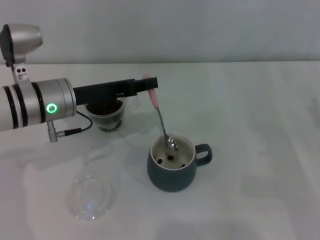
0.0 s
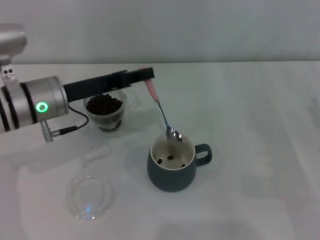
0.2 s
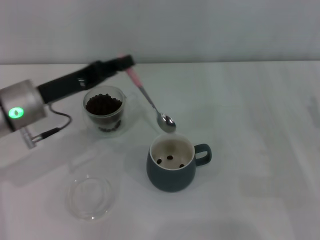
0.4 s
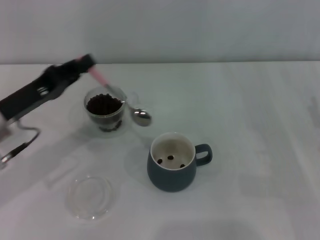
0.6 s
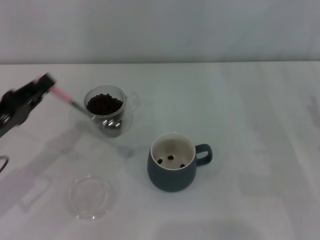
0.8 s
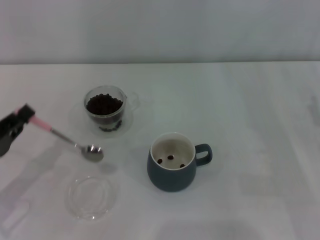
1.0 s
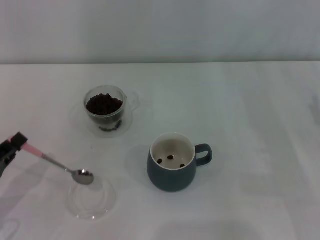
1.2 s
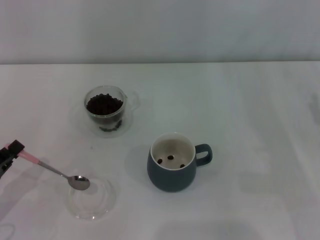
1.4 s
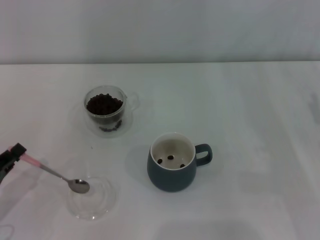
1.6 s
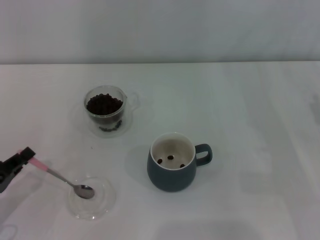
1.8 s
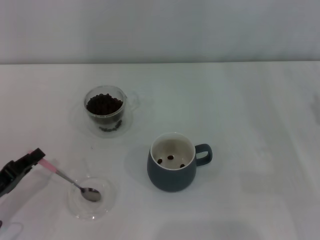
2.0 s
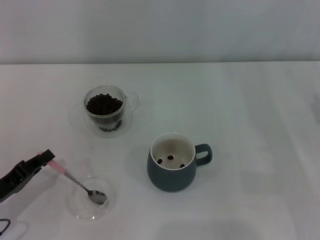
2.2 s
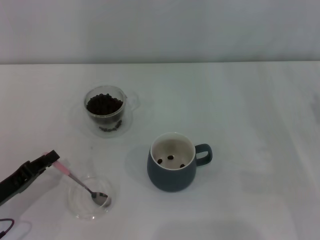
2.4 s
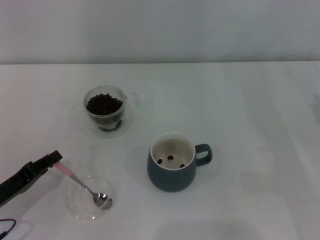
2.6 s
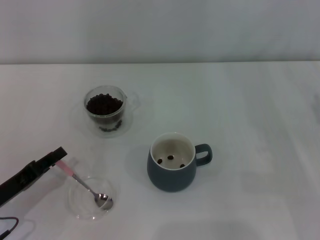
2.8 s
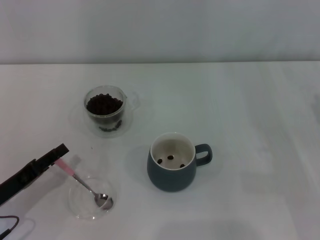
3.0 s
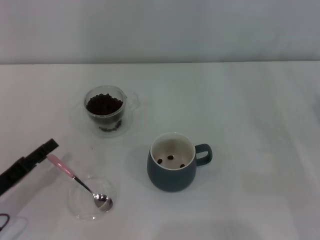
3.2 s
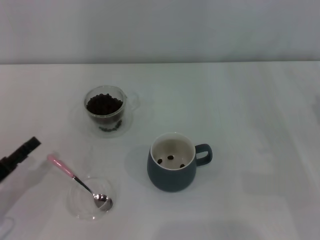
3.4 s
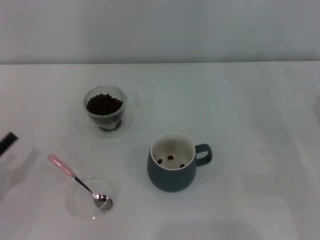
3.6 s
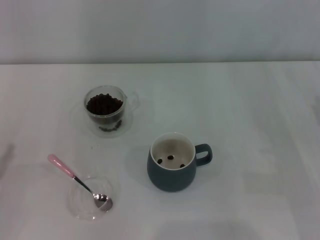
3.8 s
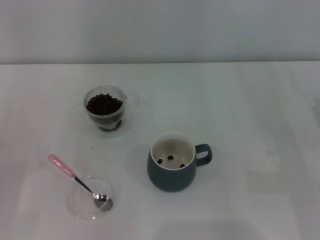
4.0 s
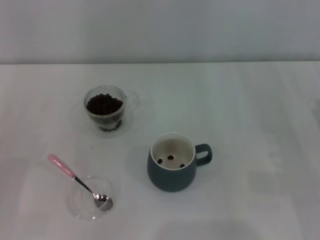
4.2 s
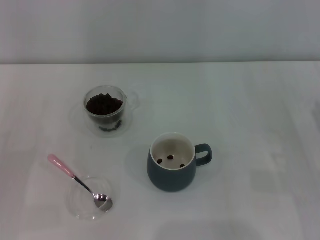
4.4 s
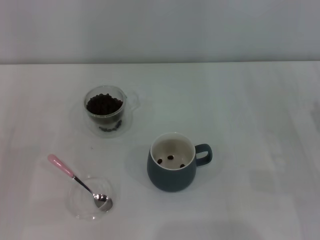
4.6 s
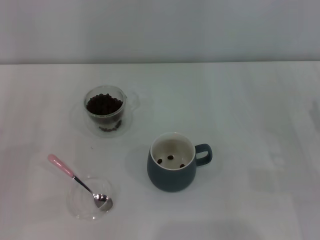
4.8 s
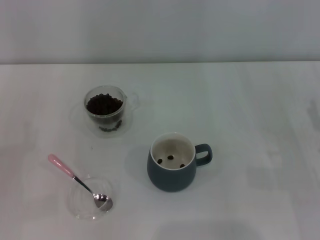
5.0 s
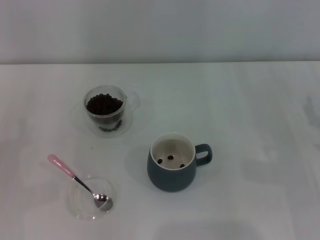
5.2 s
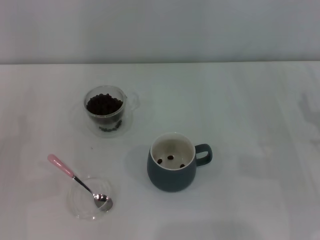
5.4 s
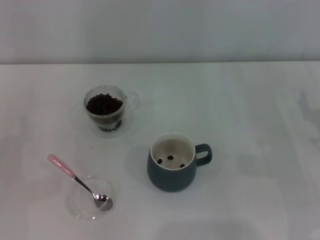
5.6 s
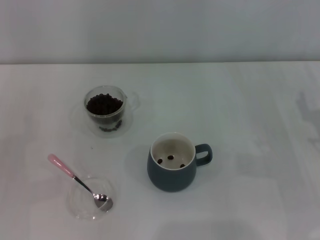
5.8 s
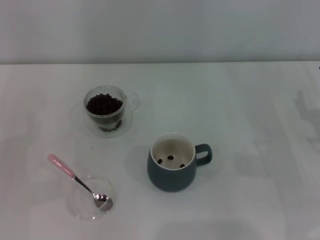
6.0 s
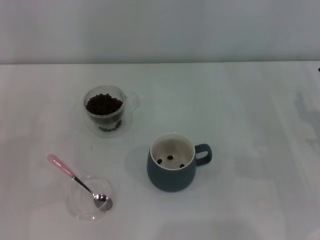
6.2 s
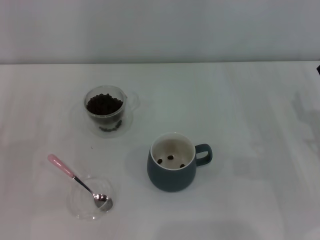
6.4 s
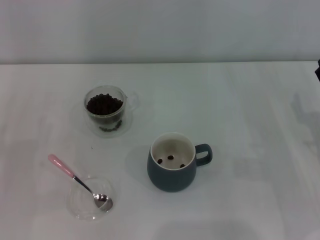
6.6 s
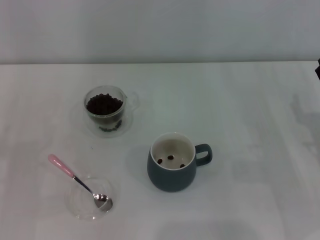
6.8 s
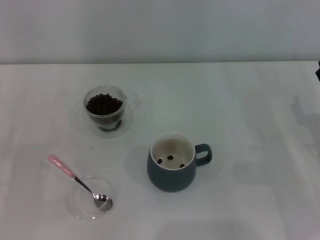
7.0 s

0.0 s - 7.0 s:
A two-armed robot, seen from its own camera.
Task of the whole recording: Use a pink spoon to take out the coffee beans from the glass and pour them into the gray cup.
0.0 s - 1.4 s: The left gripper travels backward, to the left and downward by about 25 cm.
1.4 s - 2.8 s: The grippers move only a little.
2.8 s - 4.2 s: The left gripper heads to the left, covering approximately 10 cm, and opens up.

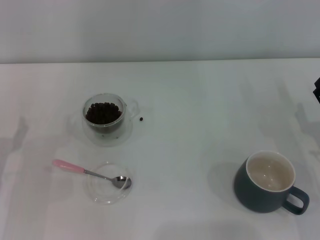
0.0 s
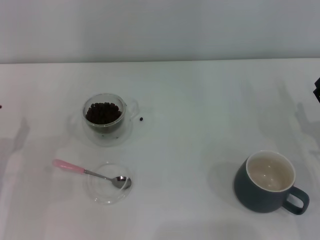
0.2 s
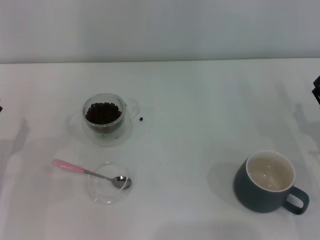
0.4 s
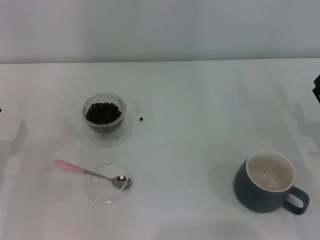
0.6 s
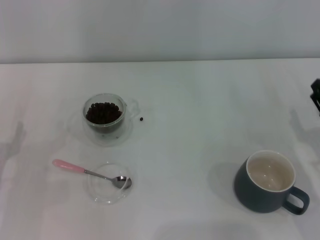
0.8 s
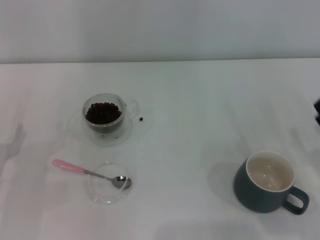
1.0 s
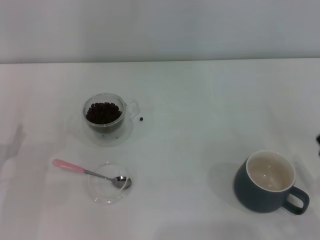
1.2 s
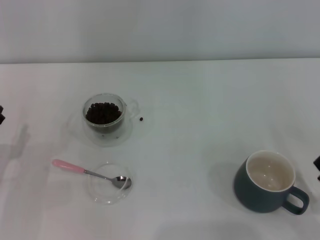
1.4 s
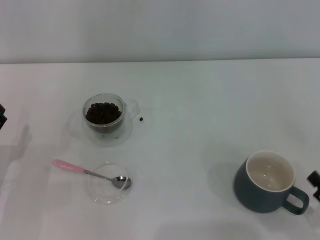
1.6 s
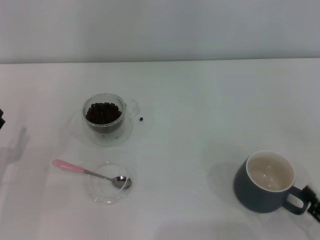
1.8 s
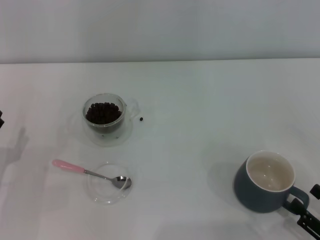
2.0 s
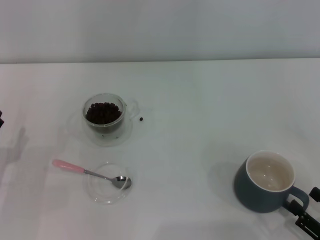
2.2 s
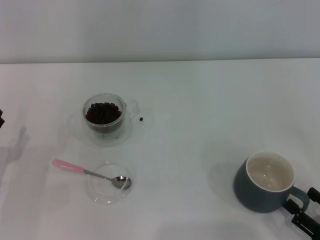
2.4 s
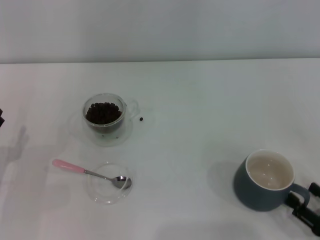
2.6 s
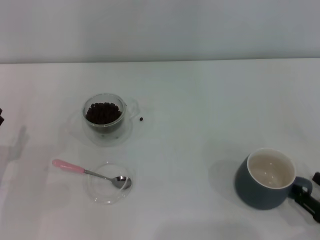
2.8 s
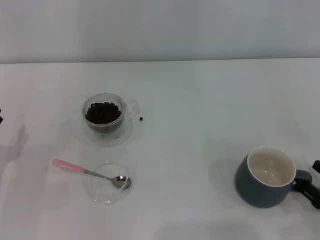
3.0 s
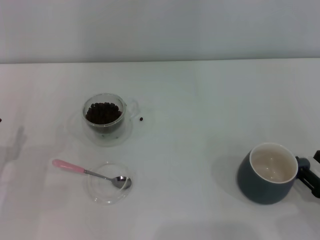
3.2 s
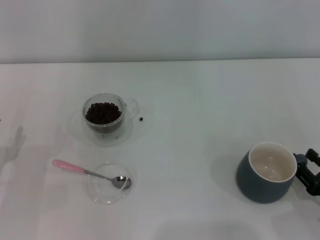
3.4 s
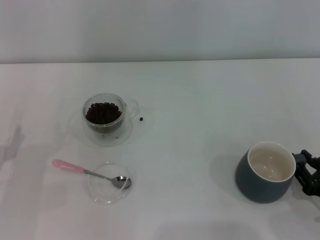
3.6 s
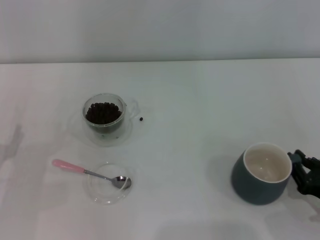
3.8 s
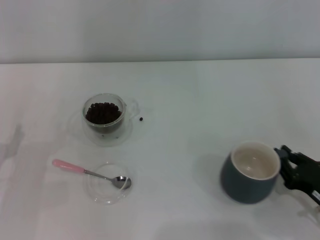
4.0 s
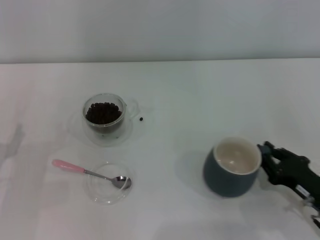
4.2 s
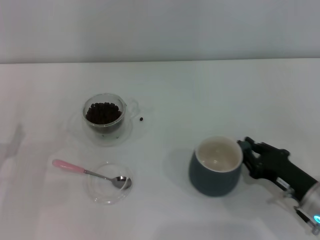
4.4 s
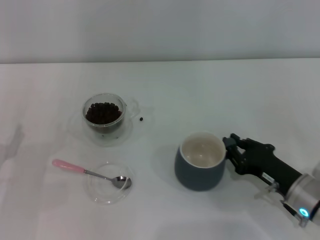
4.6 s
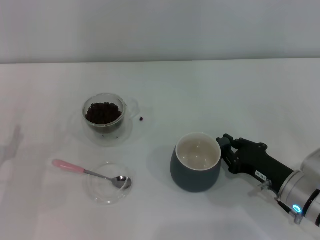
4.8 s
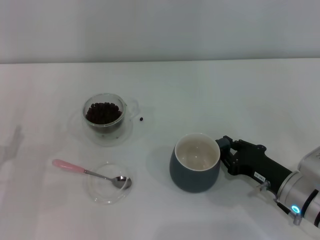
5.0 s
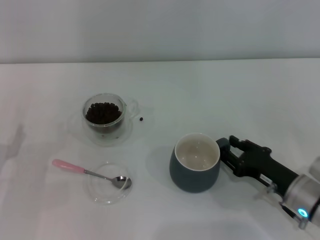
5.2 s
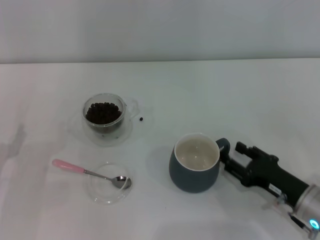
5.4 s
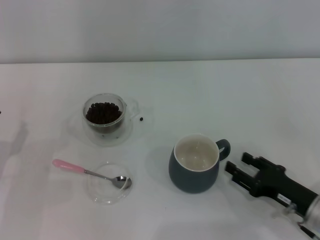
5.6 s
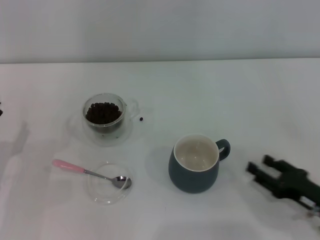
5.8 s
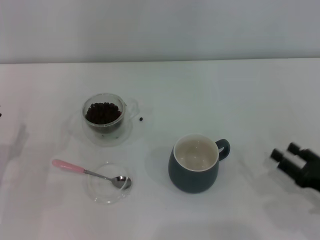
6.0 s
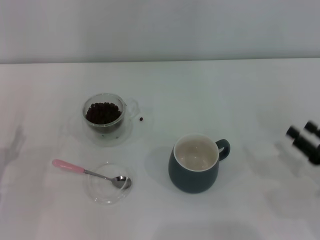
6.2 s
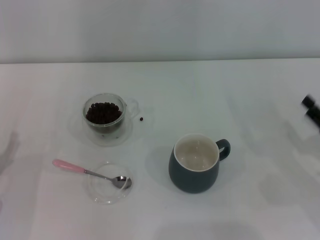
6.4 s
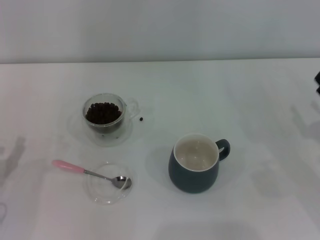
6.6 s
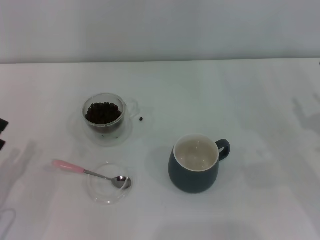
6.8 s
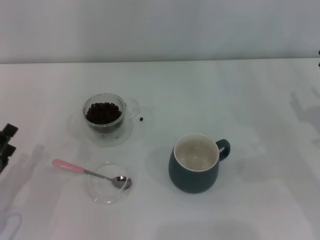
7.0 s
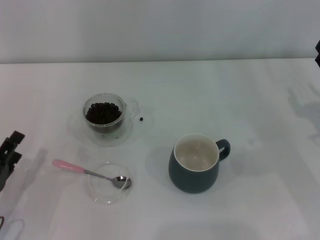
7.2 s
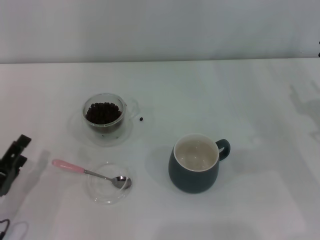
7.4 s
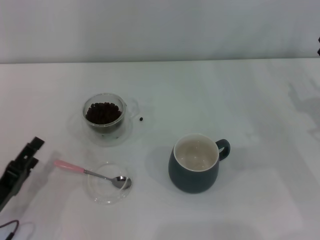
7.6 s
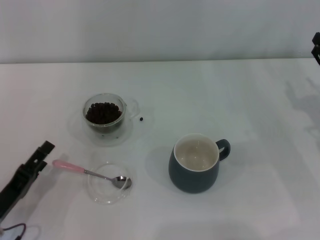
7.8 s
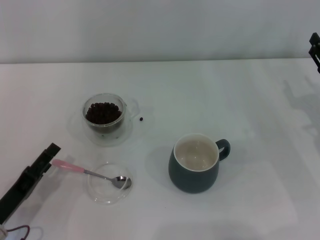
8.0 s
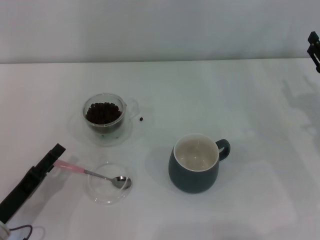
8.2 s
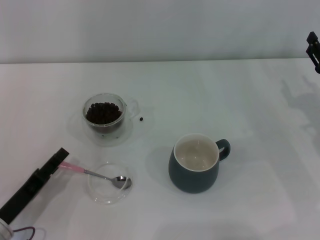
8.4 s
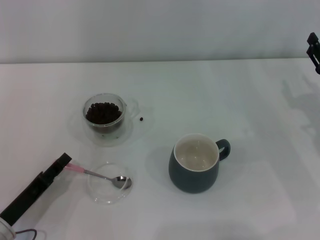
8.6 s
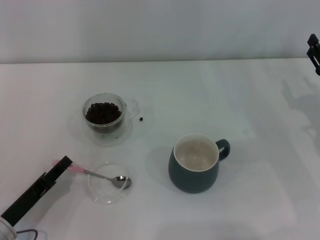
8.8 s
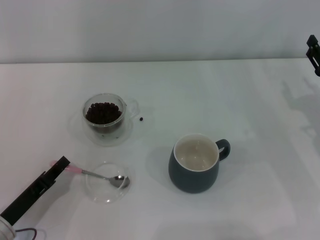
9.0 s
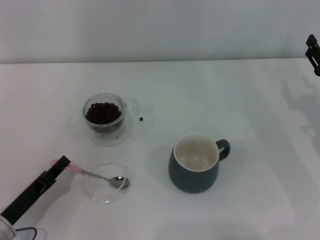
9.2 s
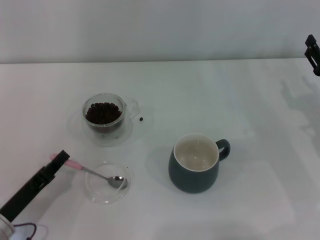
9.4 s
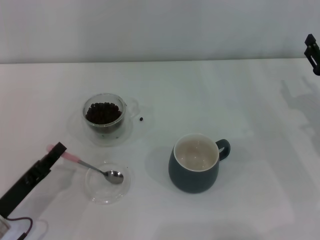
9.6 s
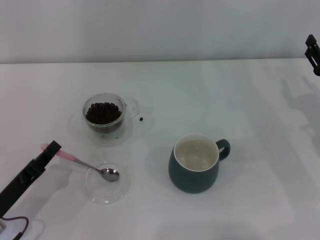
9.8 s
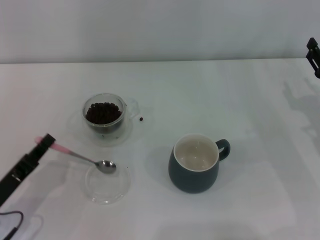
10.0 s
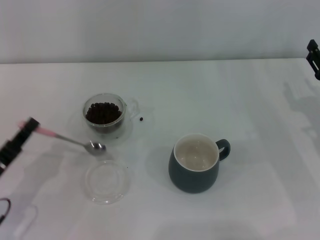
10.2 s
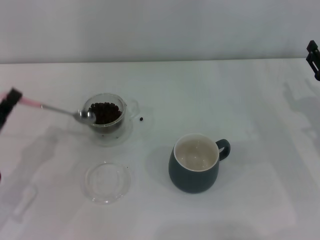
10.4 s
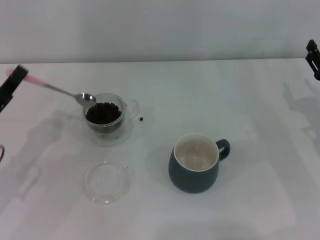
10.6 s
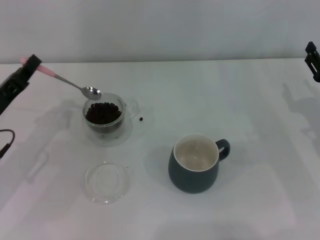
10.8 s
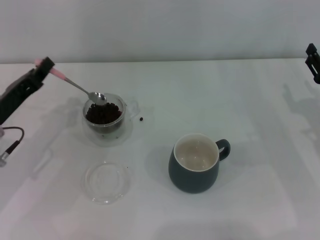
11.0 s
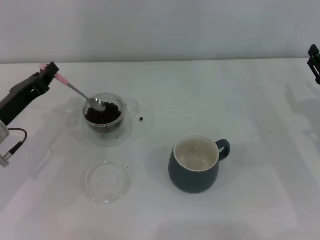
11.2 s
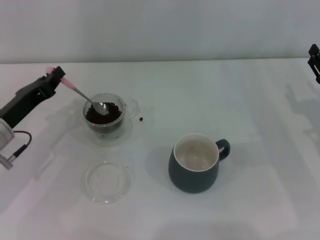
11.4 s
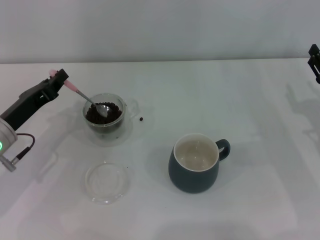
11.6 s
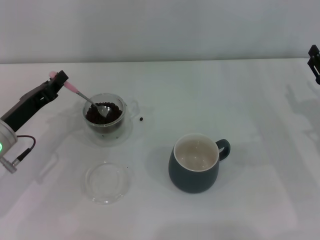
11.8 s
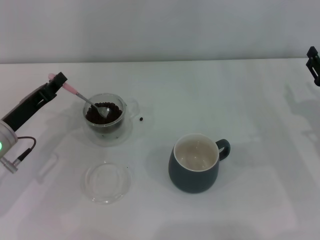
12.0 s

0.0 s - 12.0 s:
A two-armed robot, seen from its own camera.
Task of the whole recording: Use a pink spoon to take out the coffee beans from the glass and pour them into the gray cup.
Step, 5.8 s - 10.0 s: Pick up the spoon with the right gripper.
0.0 s - 1.6 s: The right gripper heads backward, covering some 15 cm.
1.6 s - 3.0 s: The right gripper ends up approximately 5 cm from where it was.
3.0 s - 4.4 s: The right gripper moves forward and to the left, roughly 10 cm, and closes its fingers.
4.4 s - 6.0 s: The right gripper shifts some 5 cm to the right, and opens its fingers.
6.0 s - 7.6 s: The left gripper moves backward, some 5 cm. The right gripper goes about 15 cm forward and upward.
7.6 s - 9.0 s: The left gripper closes.
9.0 s - 10.4 s: The left gripper is displaced upward by roughly 5 cm, and closes.
10.4 s - 12.0 s: The left gripper moves forward, some 10 cm.

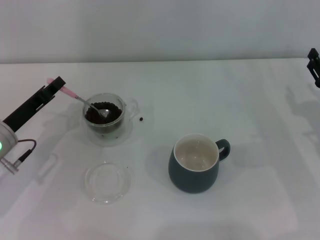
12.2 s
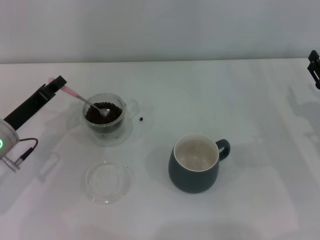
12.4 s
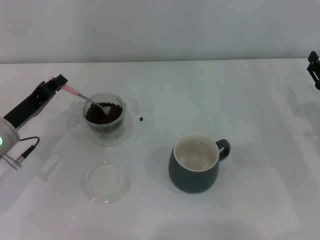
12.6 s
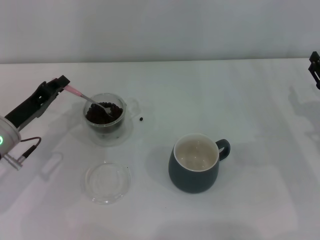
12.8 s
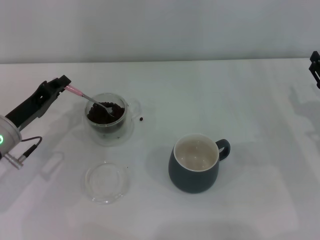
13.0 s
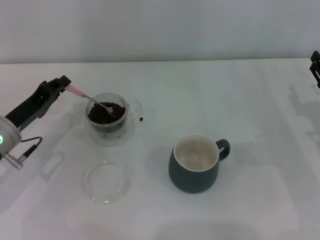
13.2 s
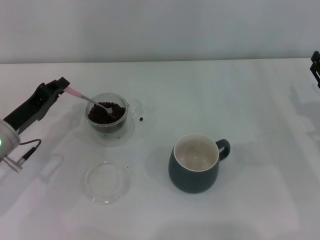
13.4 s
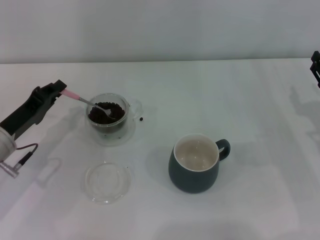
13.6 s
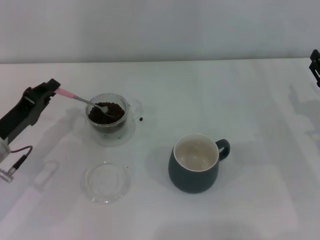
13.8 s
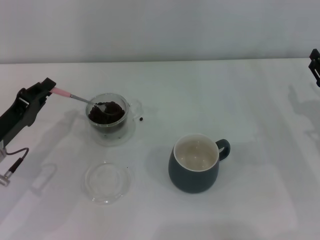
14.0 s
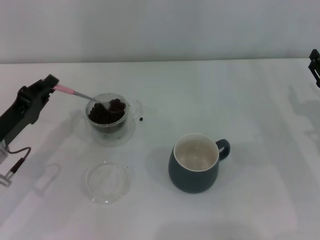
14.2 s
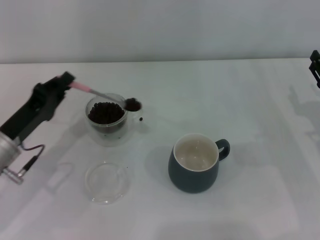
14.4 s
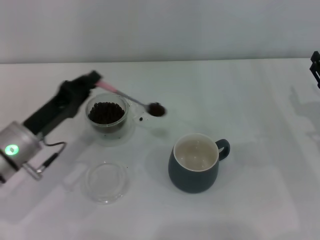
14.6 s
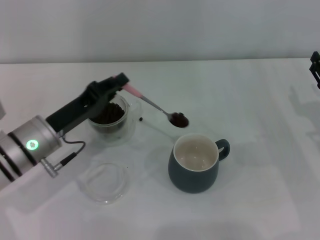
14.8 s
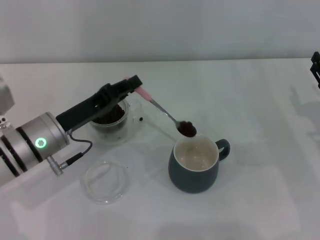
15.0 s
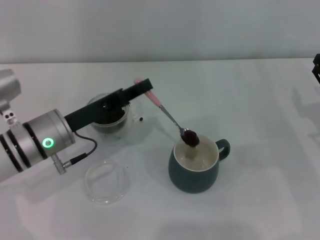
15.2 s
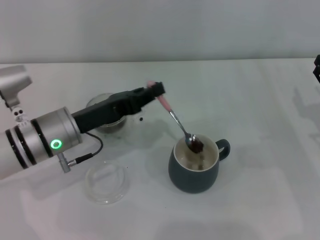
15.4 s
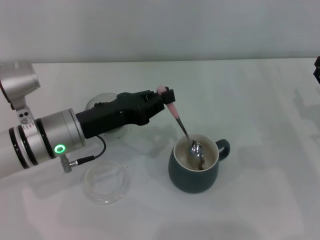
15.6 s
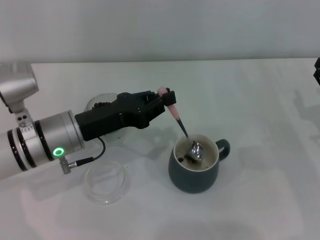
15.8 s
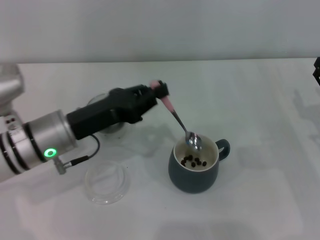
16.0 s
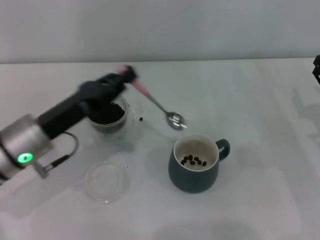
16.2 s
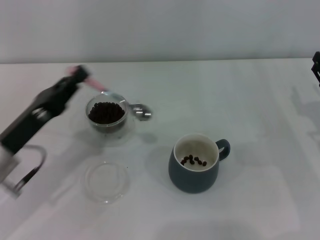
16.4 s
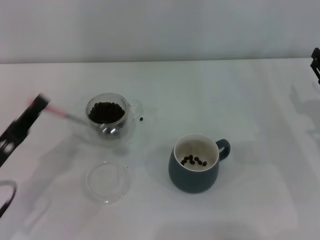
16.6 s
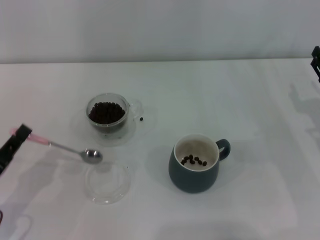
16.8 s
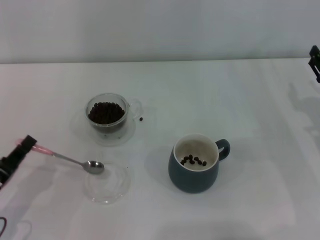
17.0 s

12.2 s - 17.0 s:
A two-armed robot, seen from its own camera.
Task of the whole recording: Use a pink spoon to take out the coffee beans from the glass and pour them into the gray cup.
12.2 s - 13.8 s: The grippers move only a little.
13.8 s - 15.4 s: The left gripper heads to the right, covering roughly 10 cm.
15.4 s - 17.0 s: The left gripper moves to the left, backward and downward, roughly 20 cm.
